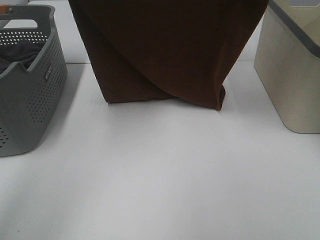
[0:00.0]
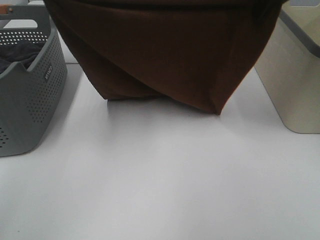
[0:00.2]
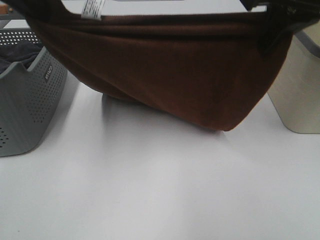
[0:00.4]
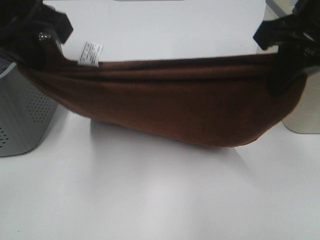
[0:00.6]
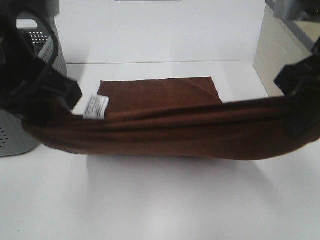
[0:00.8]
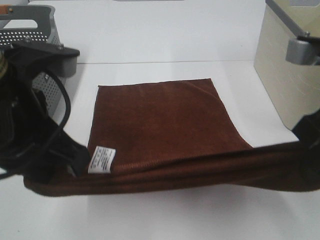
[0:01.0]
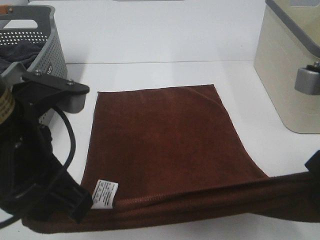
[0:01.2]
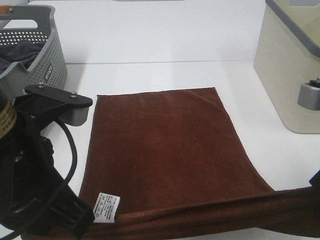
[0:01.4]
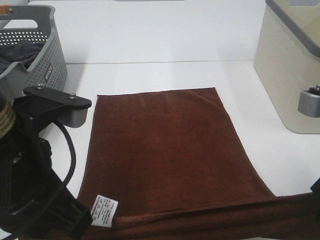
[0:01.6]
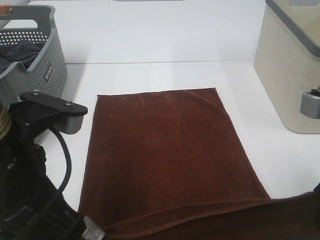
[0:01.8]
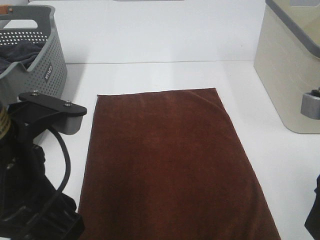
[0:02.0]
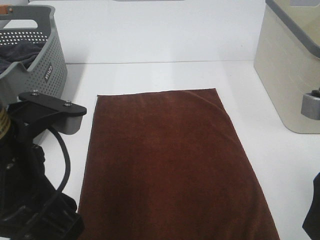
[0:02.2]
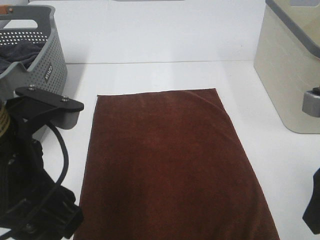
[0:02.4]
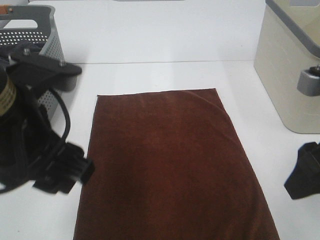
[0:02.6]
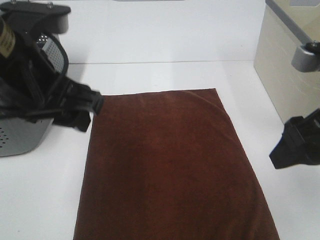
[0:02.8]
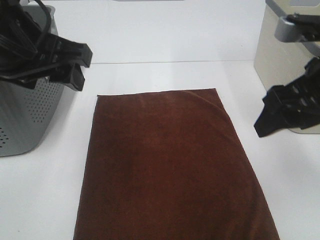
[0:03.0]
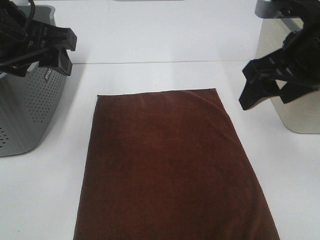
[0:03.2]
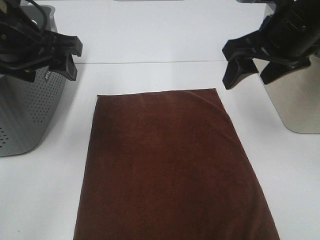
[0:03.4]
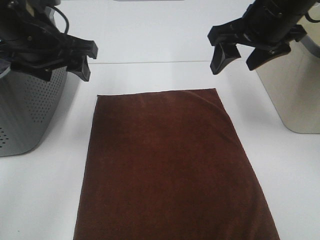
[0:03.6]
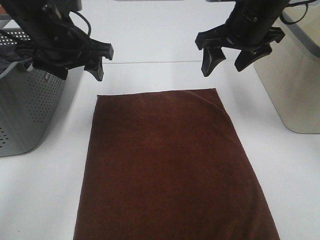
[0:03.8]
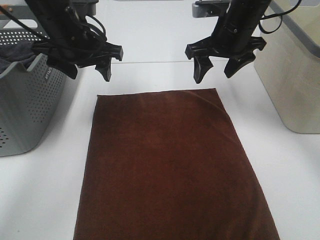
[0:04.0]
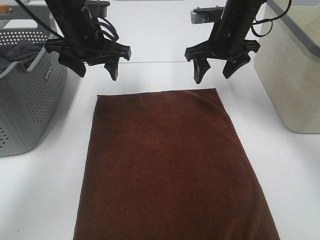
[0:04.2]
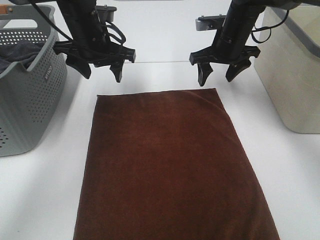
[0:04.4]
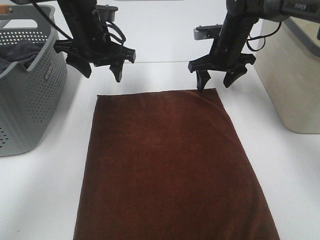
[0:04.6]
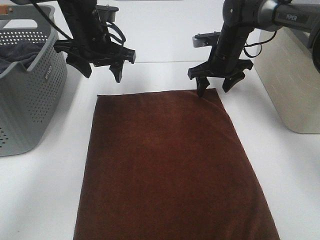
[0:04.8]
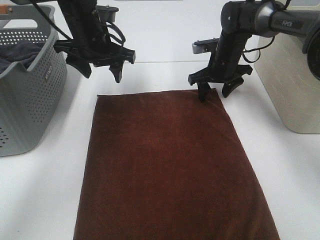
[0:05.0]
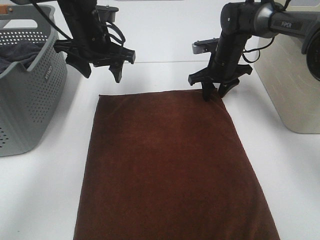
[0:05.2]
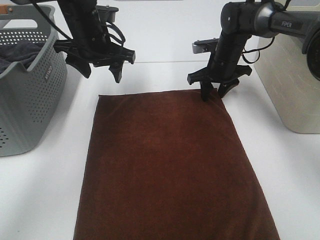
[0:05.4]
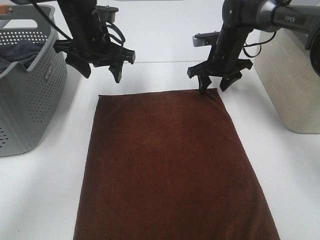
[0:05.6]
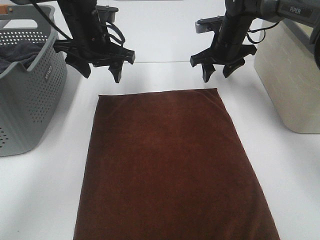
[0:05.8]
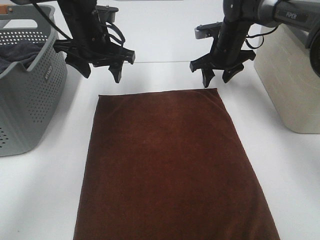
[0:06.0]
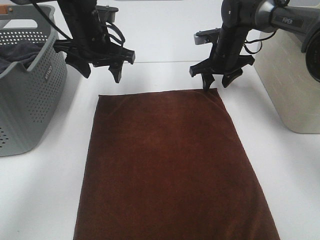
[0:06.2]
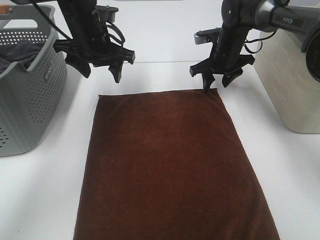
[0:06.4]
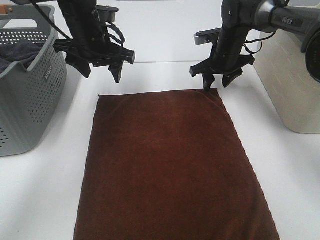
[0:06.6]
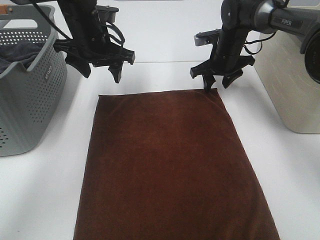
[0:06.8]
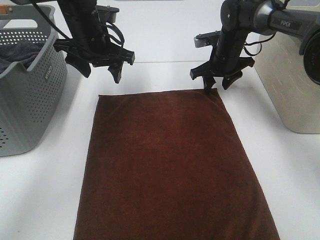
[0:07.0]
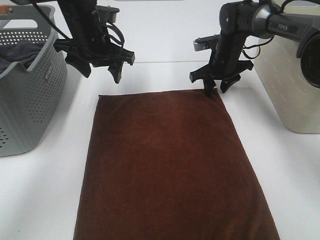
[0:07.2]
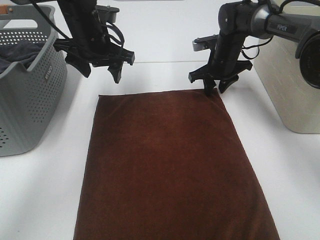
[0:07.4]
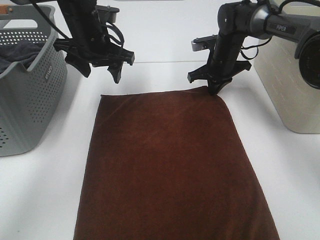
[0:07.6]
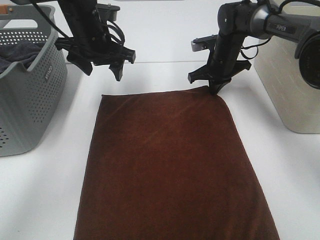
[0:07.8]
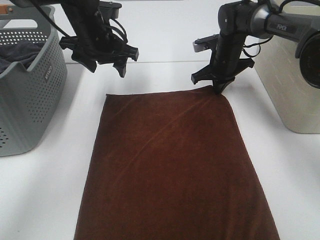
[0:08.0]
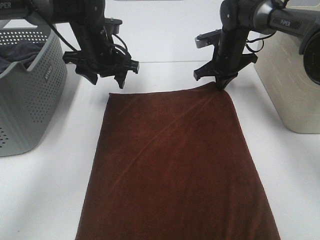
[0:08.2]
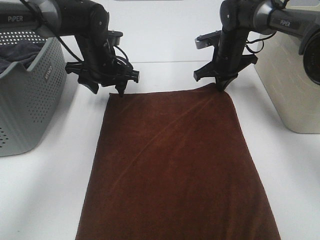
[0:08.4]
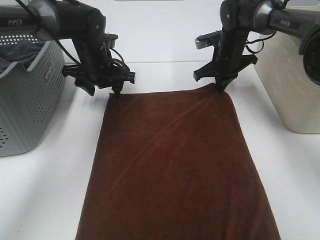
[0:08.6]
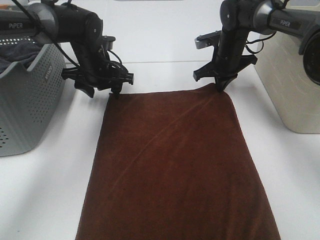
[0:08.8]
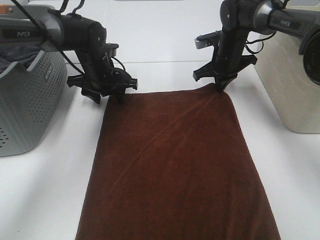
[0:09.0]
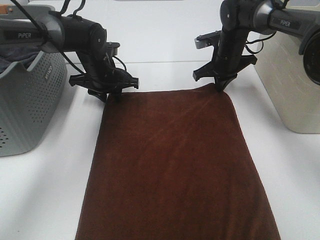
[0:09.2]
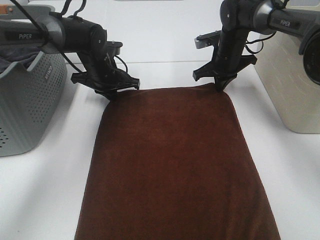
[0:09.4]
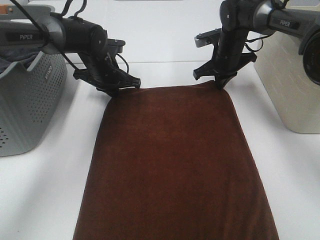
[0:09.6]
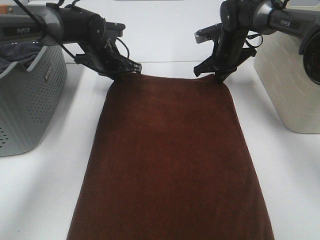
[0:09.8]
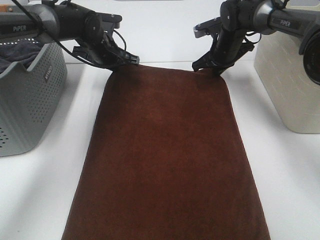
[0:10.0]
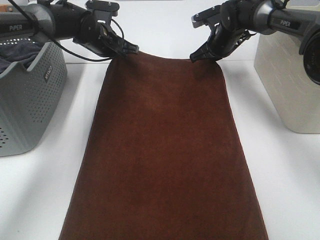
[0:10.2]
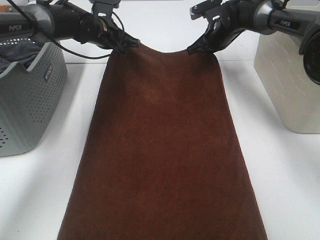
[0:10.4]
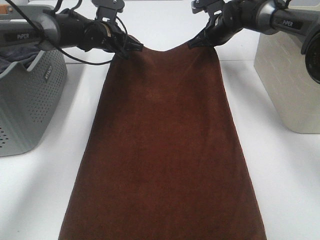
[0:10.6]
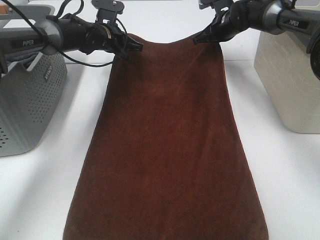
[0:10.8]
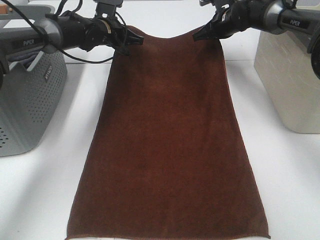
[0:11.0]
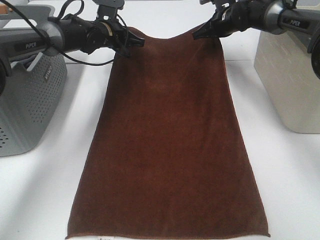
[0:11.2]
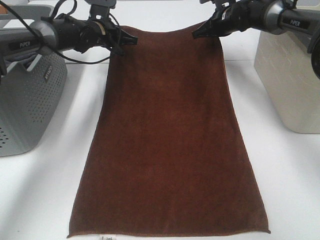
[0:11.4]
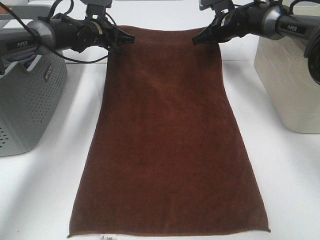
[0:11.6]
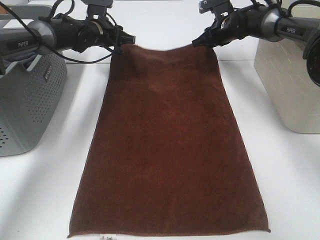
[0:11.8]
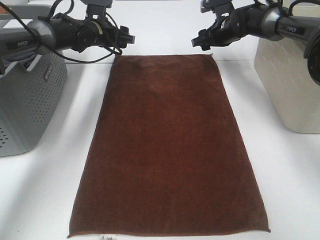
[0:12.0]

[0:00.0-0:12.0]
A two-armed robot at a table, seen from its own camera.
Task of the whole recording: Remove the towel and place it.
Step, 0:00.0 to 0:05.2: Left hand:adjust the brown towel.
Step, 0:00.0 to 0:05.2: Right hand:adjust the brown towel.
0:00.0 to 0:01.6: Both grippers move backward and downward, approximately 30 cm.
0:01.6 to 0:03.0: The left gripper is displaced forward and upward by approximately 10 cm, and opens its fingers. Meanwhile the right gripper is displaced forward by approximately 5 cm, and opens its fingers.
0:03.0 to 0:04.4: The right gripper travels forward by approximately 25 cm; the left gripper moves forward and downward, some 25 cm.
0:06.0 to 0:07.6: The right gripper closes.
0:07.6 to 0:09.0: The left gripper shifts some 10 cm downward.
0:09.0 to 0:10.4: The right gripper changes place by approximately 5 cm, while the left gripper moves forward and upward, approximately 10 cm, and closes its fingers.
0:10.4 to 0:12.0: The left gripper opens its fingers. The right gripper opens up.

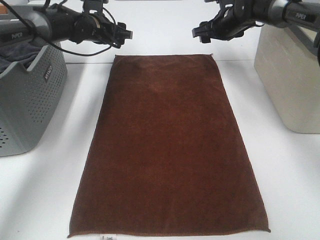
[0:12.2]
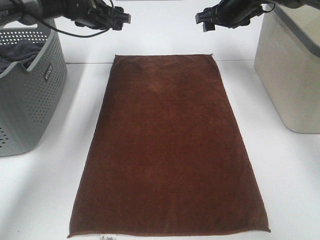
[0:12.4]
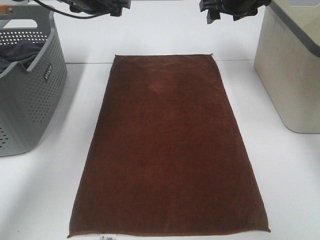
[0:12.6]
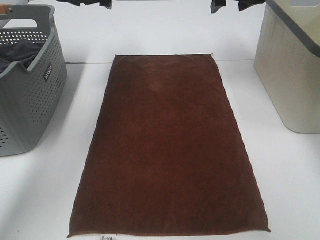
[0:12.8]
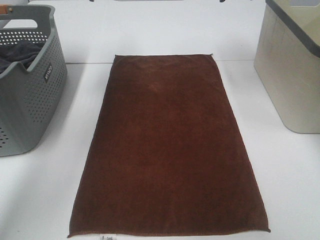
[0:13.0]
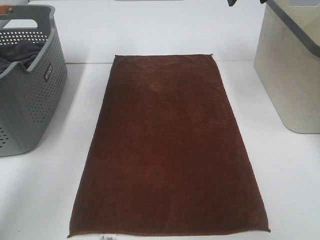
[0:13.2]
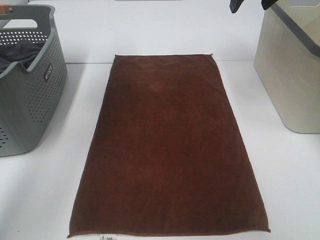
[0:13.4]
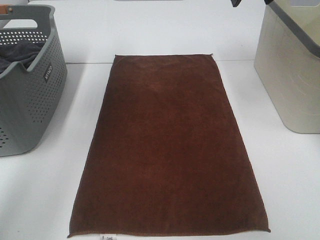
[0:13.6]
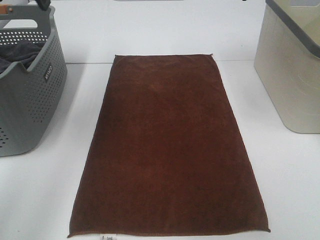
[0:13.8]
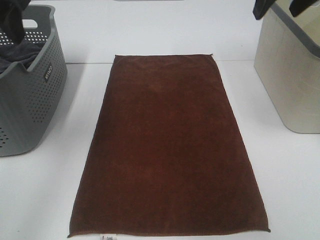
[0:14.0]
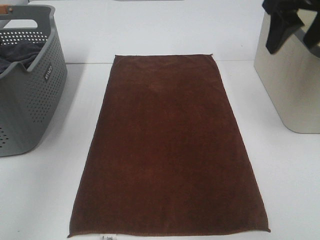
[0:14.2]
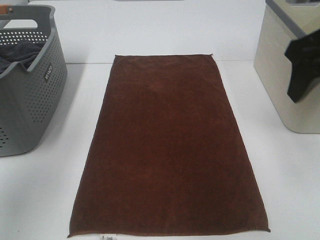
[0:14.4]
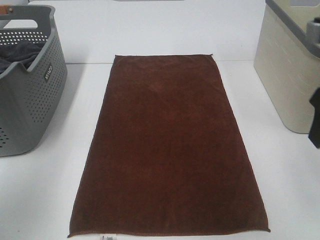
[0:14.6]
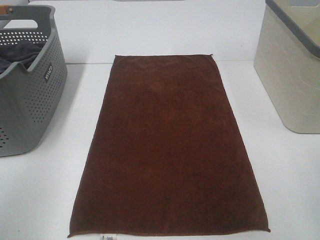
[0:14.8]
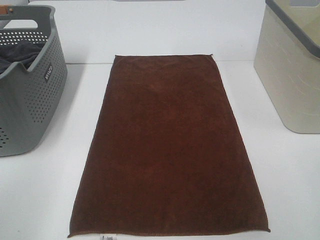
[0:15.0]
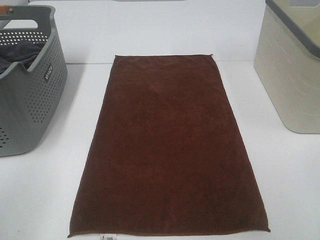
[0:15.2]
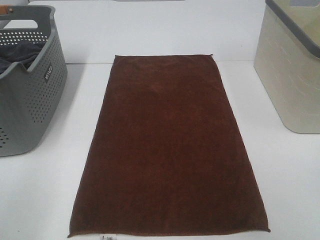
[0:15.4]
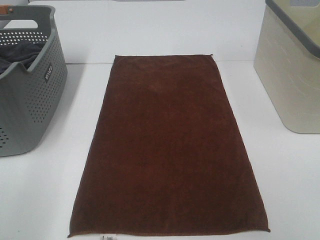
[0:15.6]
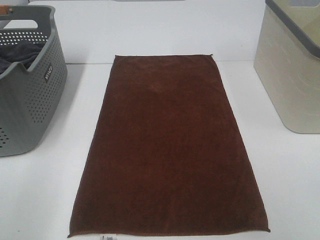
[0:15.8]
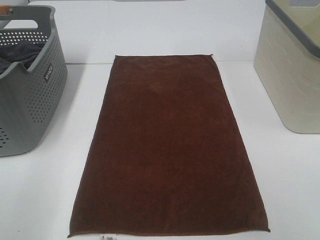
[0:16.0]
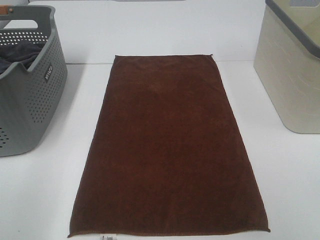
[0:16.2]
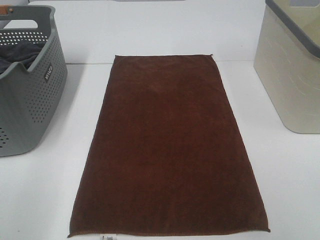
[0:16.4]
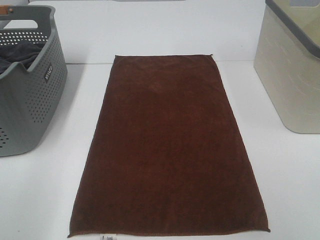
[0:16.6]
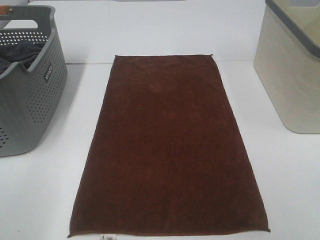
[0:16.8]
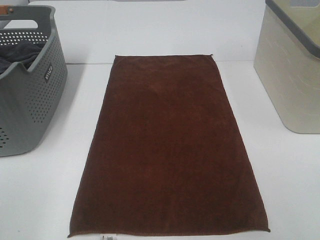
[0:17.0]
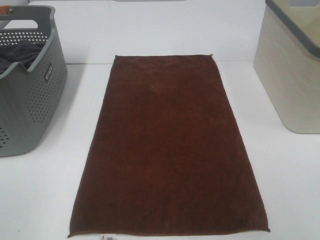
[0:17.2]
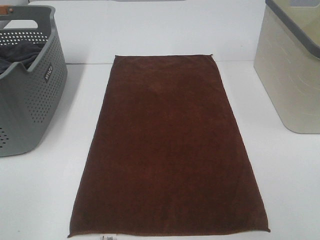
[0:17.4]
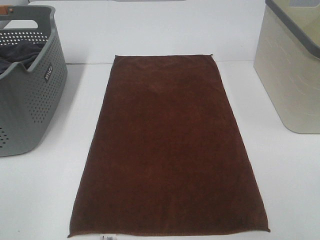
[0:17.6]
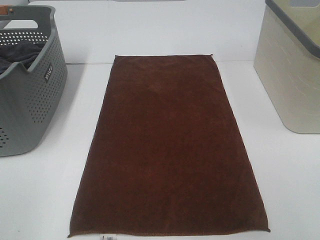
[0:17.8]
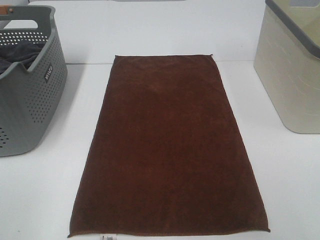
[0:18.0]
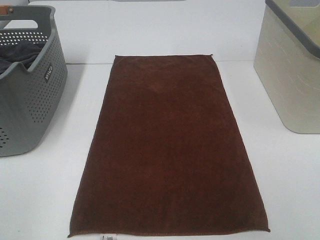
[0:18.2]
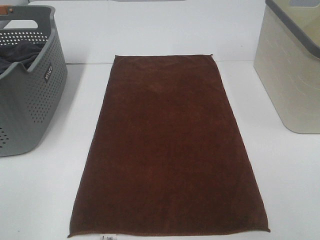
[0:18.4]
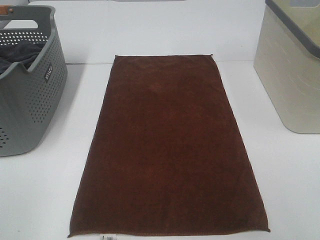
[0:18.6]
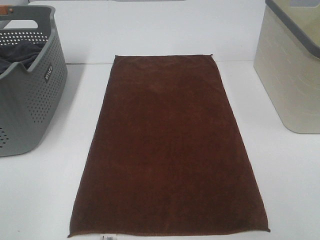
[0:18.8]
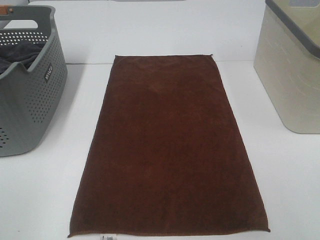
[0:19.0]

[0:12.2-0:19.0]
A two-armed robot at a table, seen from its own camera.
Task of the whole recording: Remove the towel and place it.
0:12.2 to 0:13.6: Both grippers move upward and backward, approximately 25 cm.
0:13.6 to 0:15.0: The left gripper shifts approximately 35 cm backward.

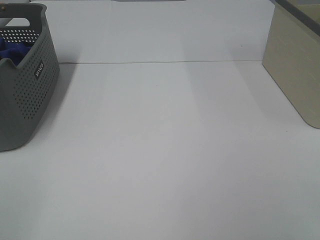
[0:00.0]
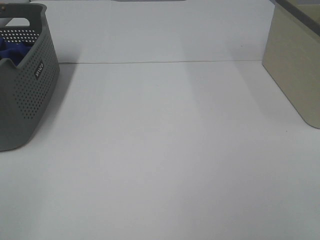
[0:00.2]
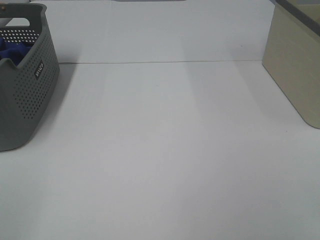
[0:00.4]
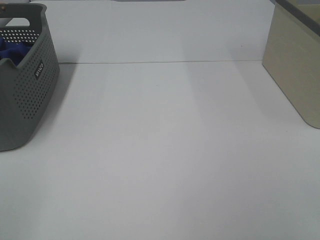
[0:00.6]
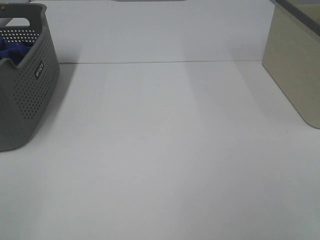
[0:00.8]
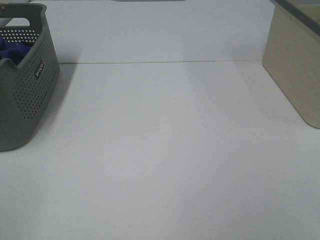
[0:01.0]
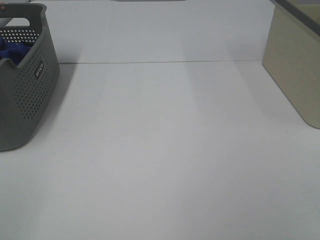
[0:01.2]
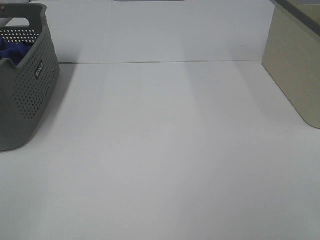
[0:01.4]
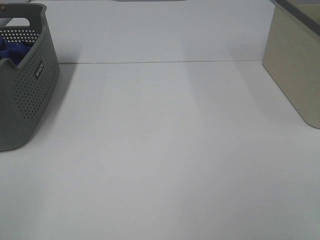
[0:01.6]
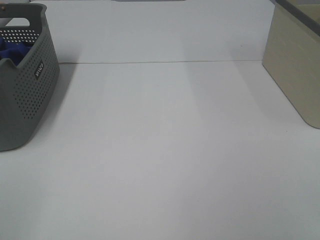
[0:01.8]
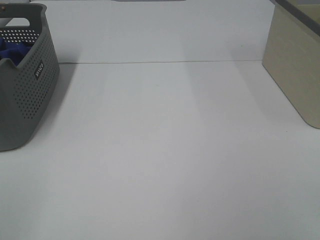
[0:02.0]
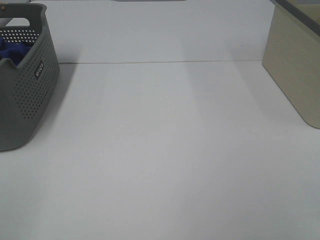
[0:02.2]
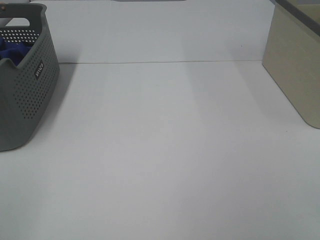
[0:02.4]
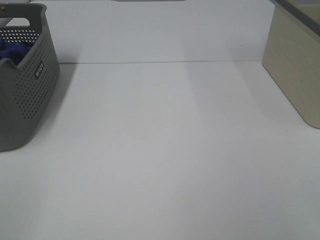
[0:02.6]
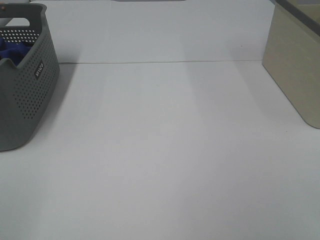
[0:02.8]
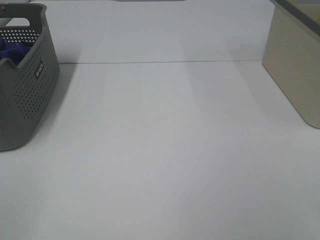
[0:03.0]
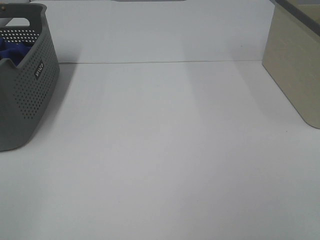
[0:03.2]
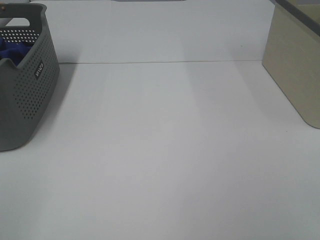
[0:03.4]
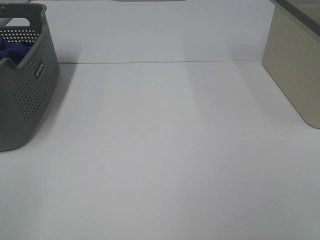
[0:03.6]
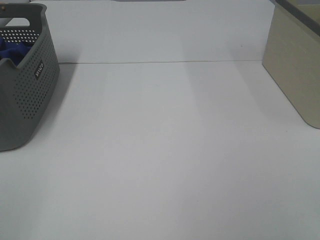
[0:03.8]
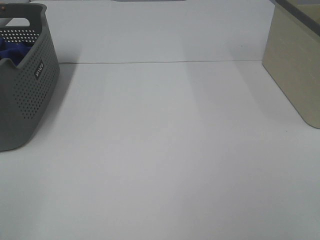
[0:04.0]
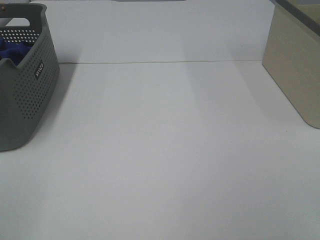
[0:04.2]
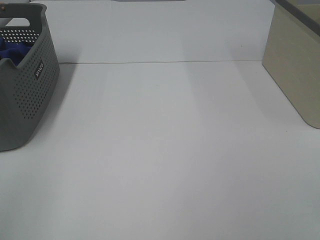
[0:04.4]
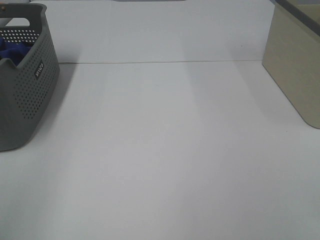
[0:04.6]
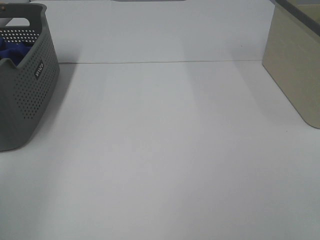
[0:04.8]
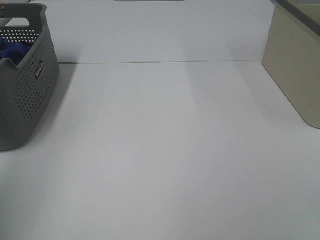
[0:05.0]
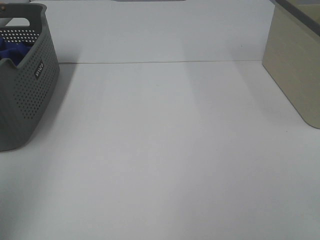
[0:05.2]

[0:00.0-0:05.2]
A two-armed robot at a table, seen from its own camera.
Task of the whole recording: Remove the towel and place it.
0:00.0 to 0:03.4: Both grippers stay about where they are.
0:03.4 to 0:05.2: The left gripper travels forward and upward by roughly 20 cm.
